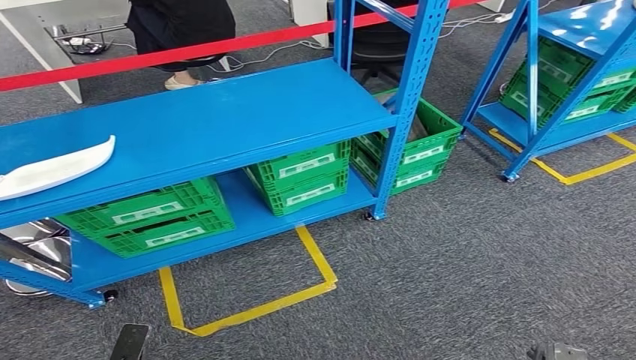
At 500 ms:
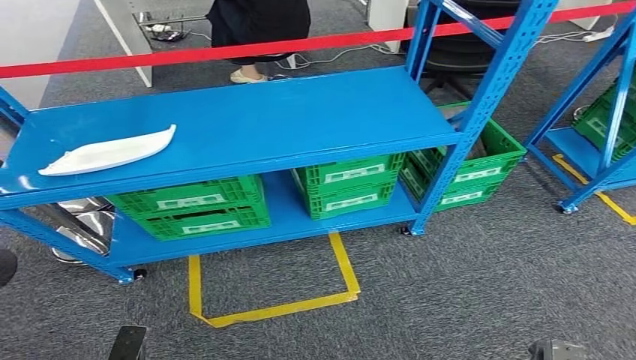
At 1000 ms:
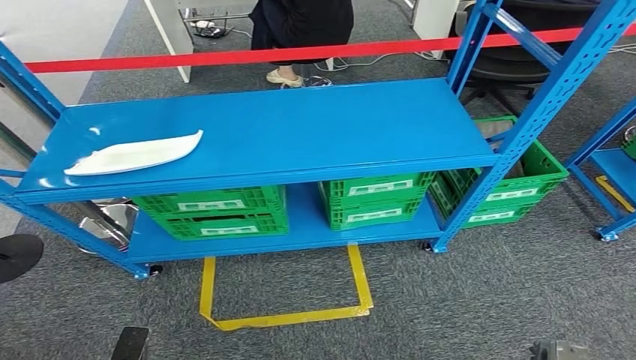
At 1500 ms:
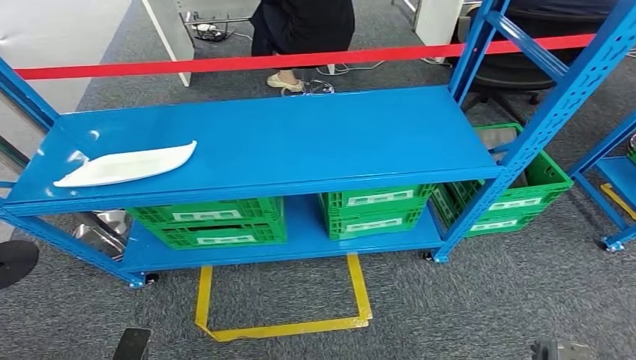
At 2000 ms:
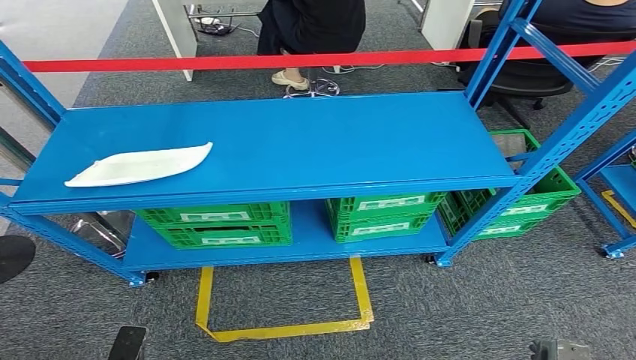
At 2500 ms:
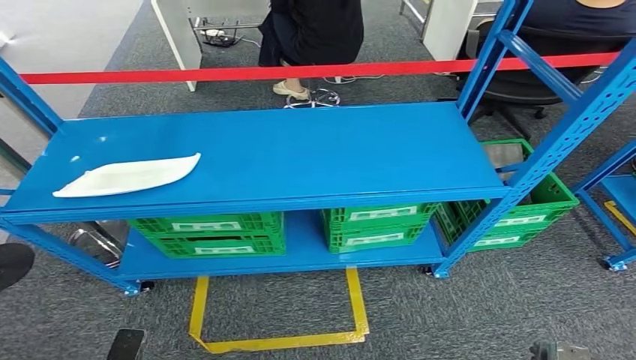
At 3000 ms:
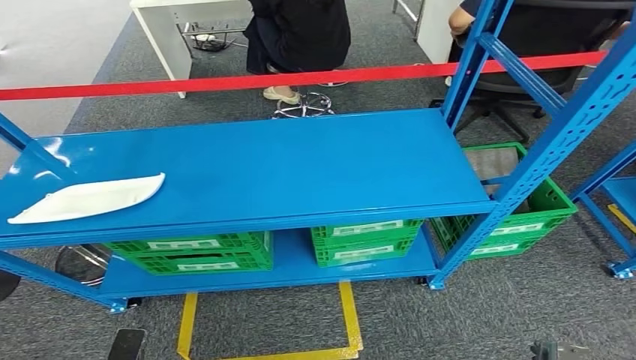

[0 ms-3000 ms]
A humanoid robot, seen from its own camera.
Step, 0 ms to 2500 ms: Move to the initial position of the workbench.
